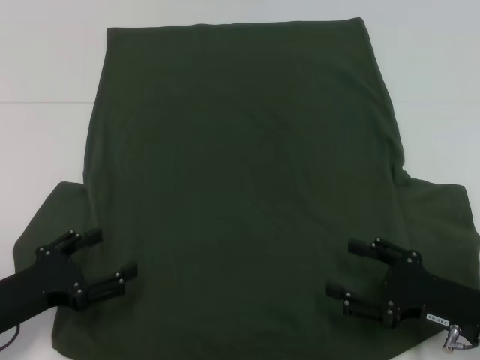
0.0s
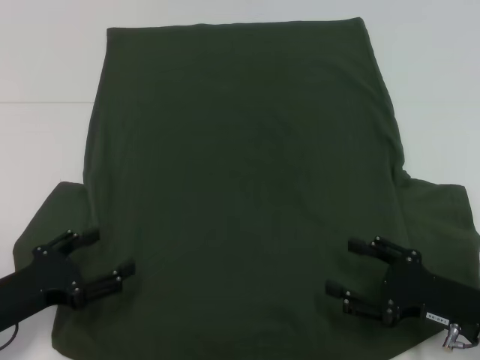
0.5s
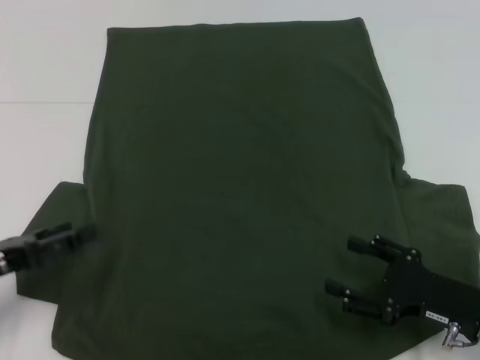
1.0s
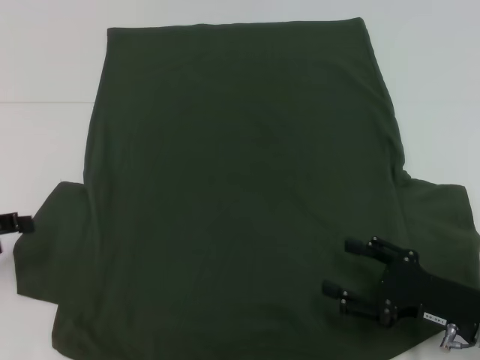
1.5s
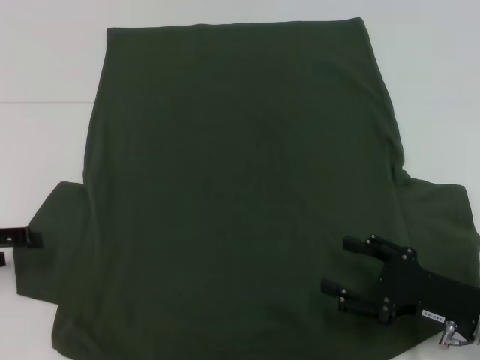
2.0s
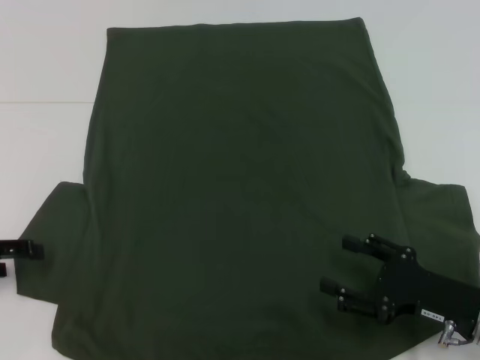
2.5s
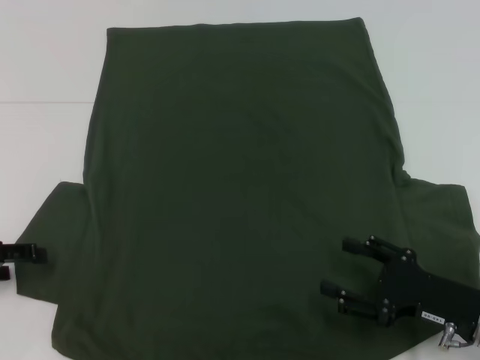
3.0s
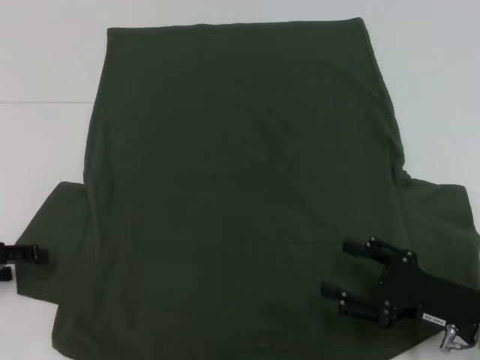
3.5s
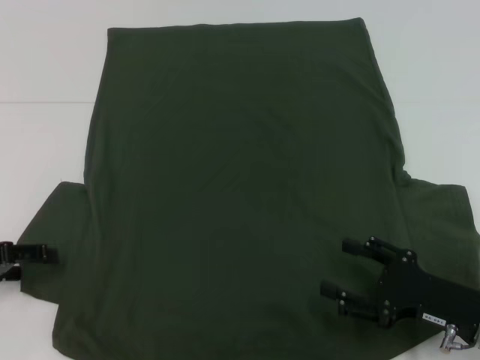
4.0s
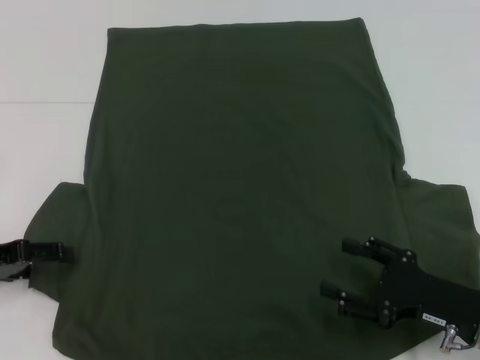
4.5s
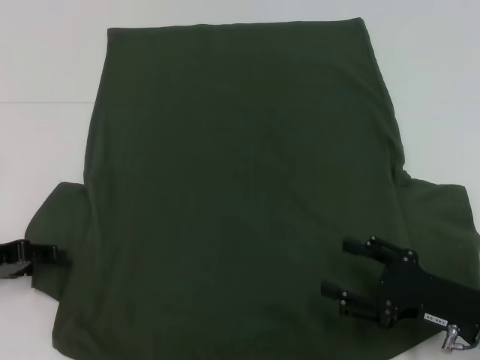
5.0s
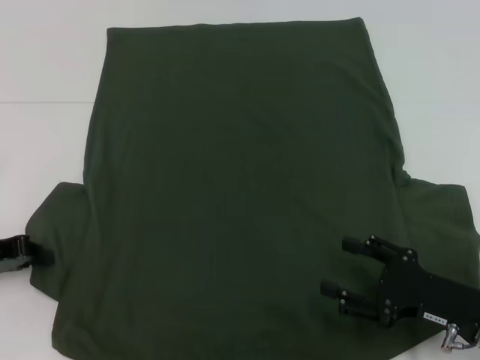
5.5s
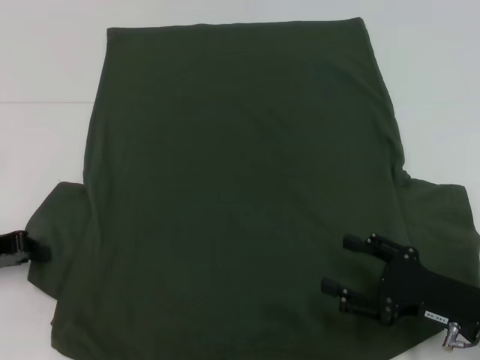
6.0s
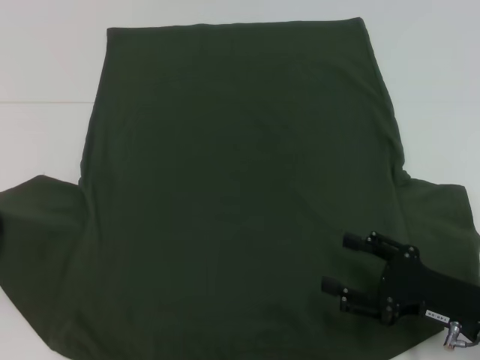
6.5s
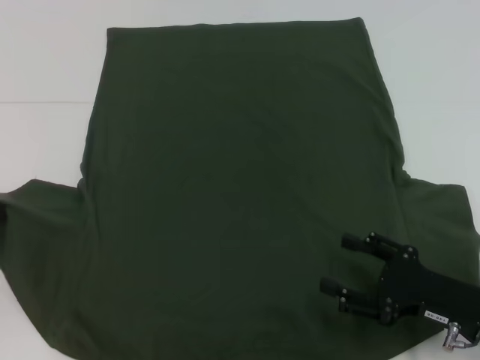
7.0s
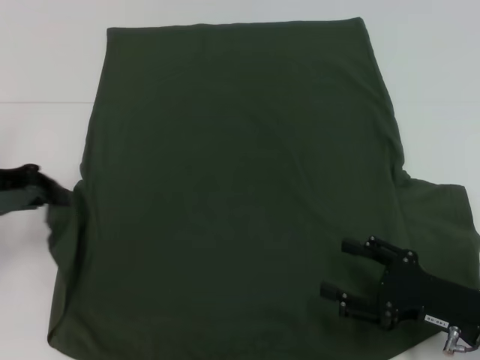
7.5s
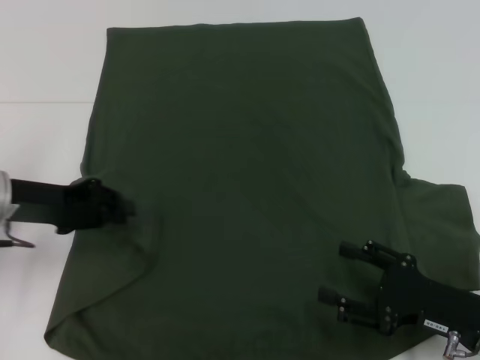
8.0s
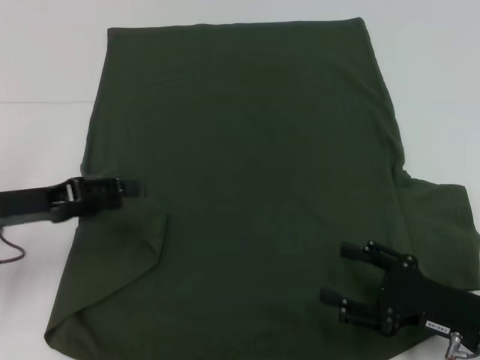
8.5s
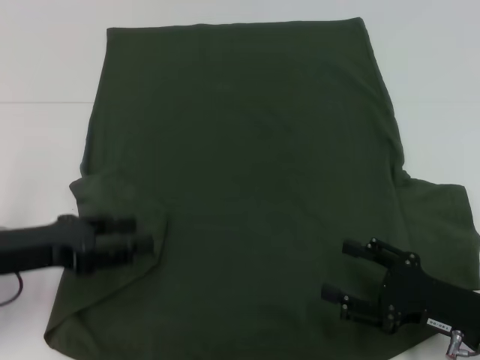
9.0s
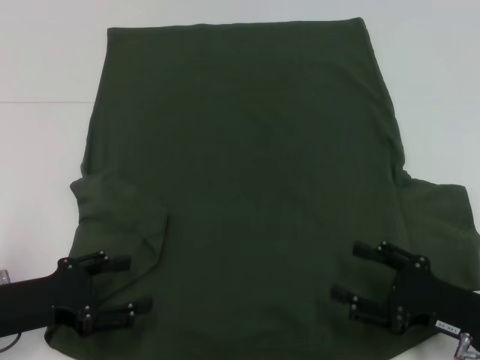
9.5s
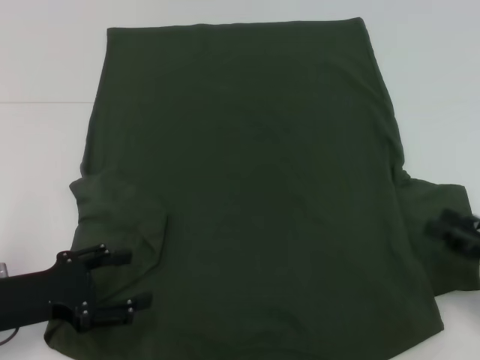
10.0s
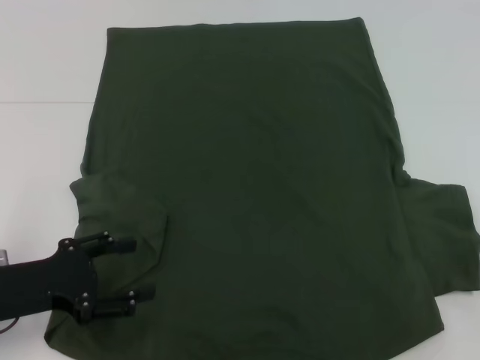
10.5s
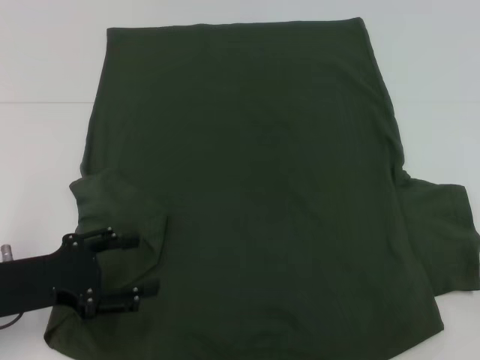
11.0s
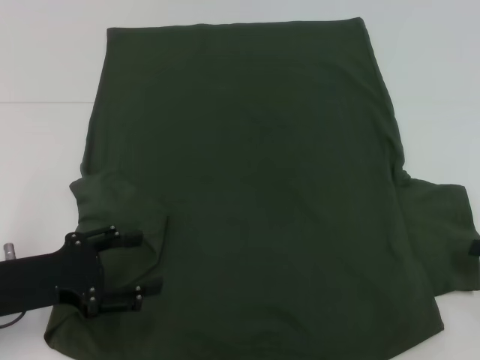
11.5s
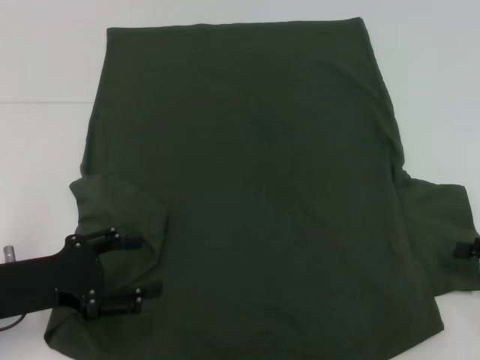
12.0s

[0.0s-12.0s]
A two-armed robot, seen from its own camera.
Step, 0.0s to 8.5s: Fold the bottom left sleeve with your left hand.
0.0s to 2.0s: The left gripper goes some 15 cm to the left, upward and forward.
2.0s to 4.0s: The grippers make only small movements.
4.0s to 6.0s: The left gripper closes.
6.0s to 8.0s: The left gripper moves to the right, about 5 cm.
8.0s to 10.0s: The left gripper goes some 10 cm backward, and opens up; the right gripper goes roughly 10 cm to the right.
10.0s to 12.0s: The right gripper shifts by approximately 5 cm.

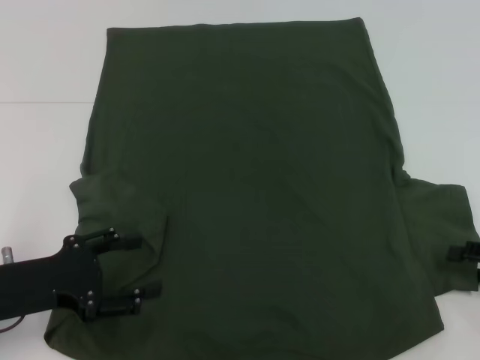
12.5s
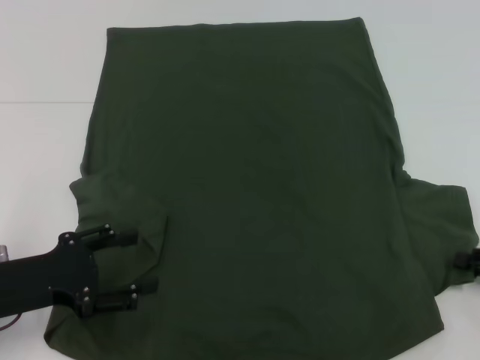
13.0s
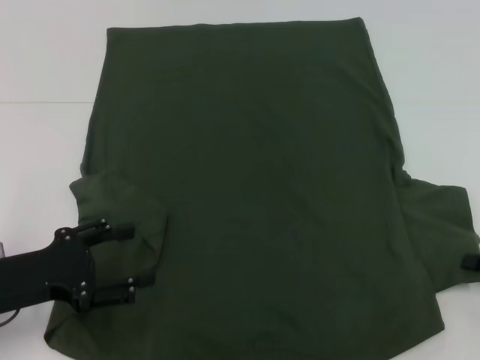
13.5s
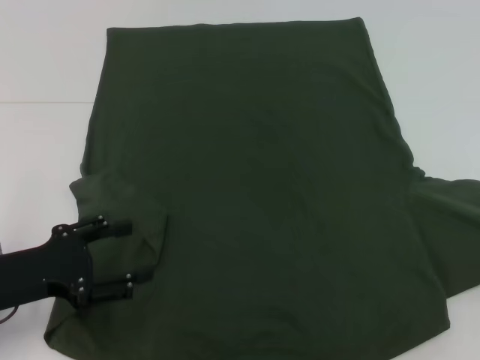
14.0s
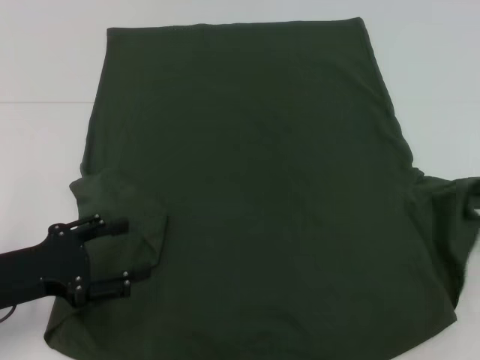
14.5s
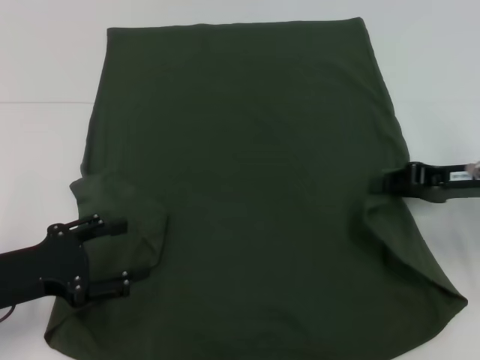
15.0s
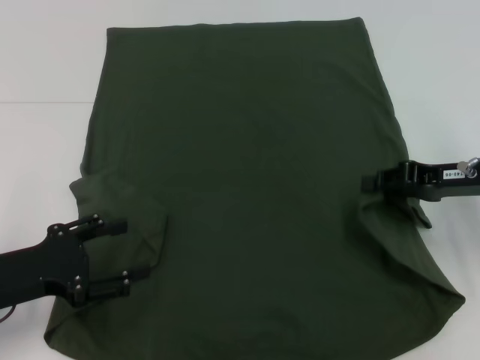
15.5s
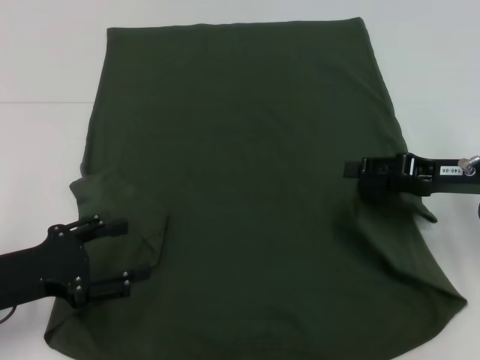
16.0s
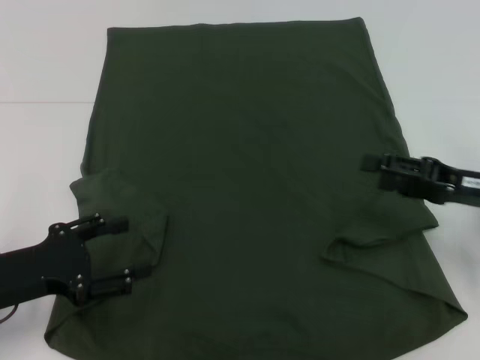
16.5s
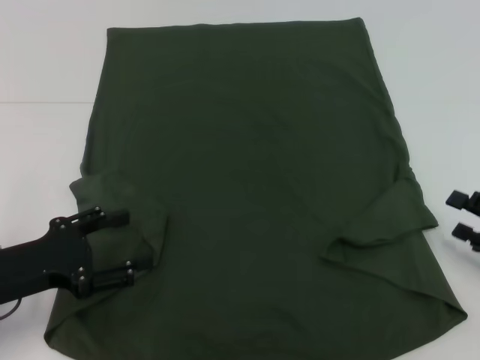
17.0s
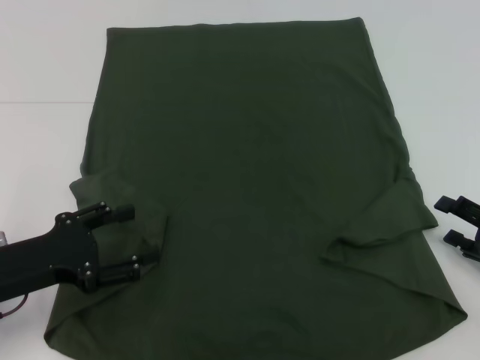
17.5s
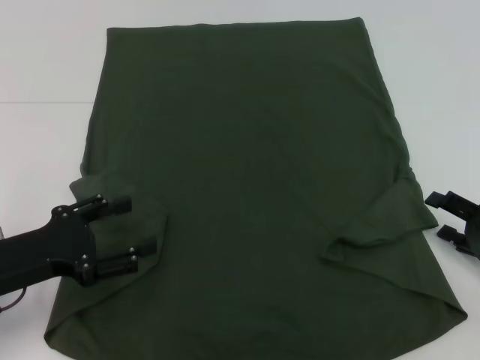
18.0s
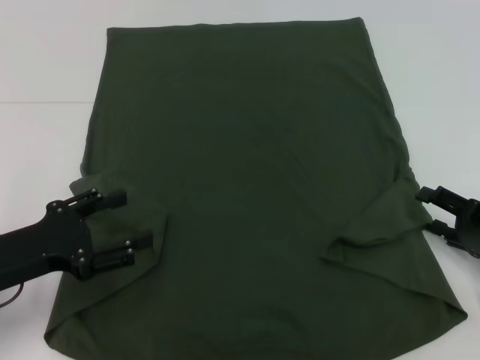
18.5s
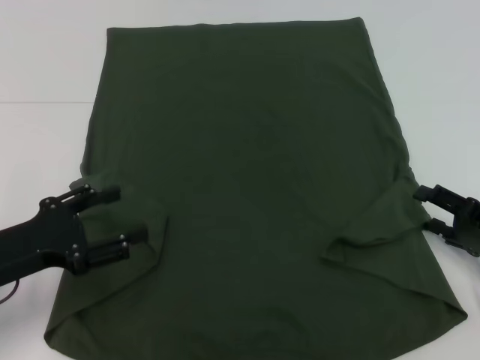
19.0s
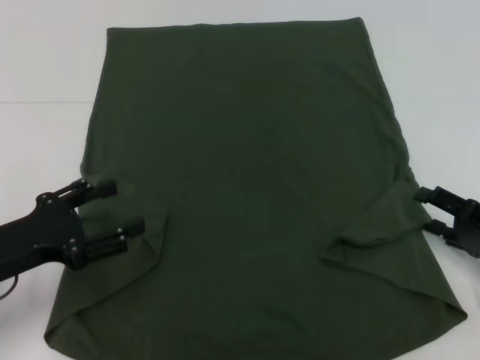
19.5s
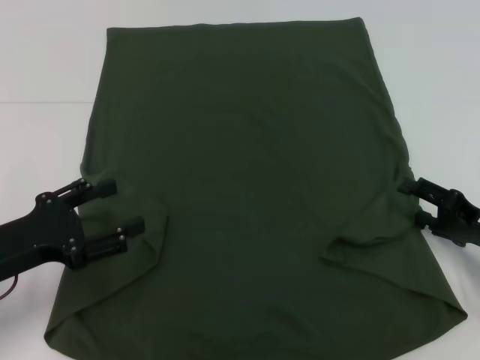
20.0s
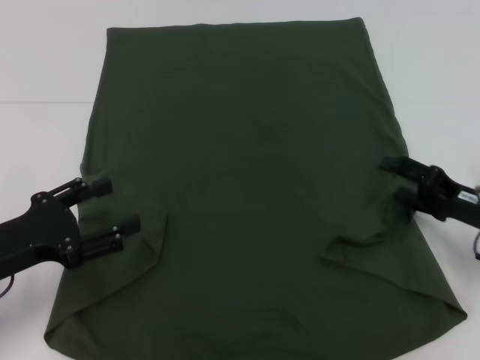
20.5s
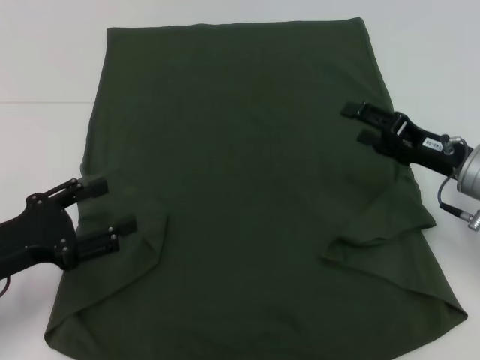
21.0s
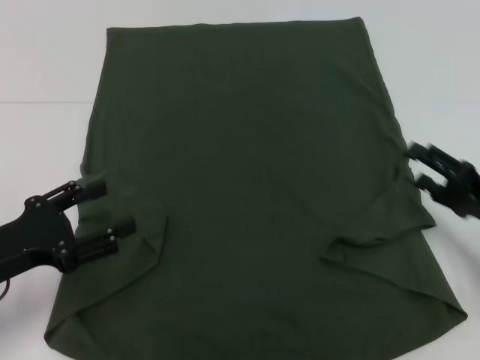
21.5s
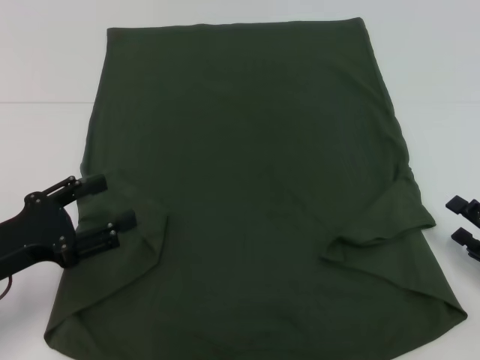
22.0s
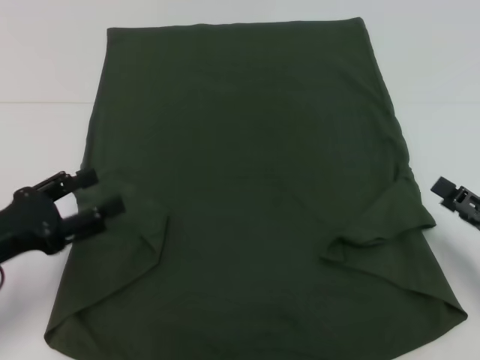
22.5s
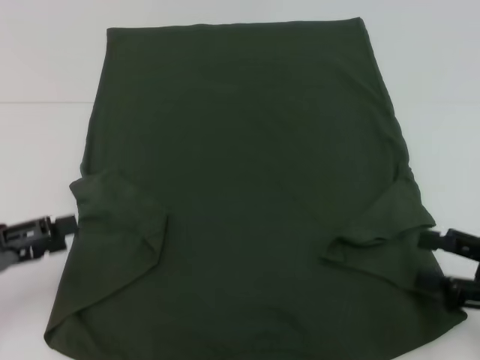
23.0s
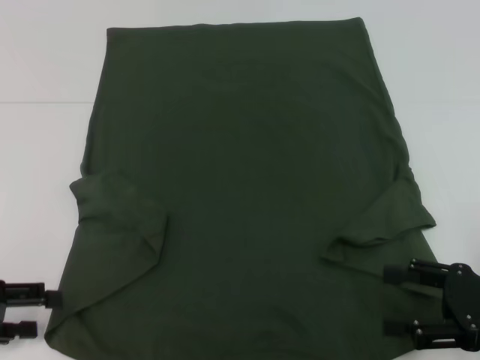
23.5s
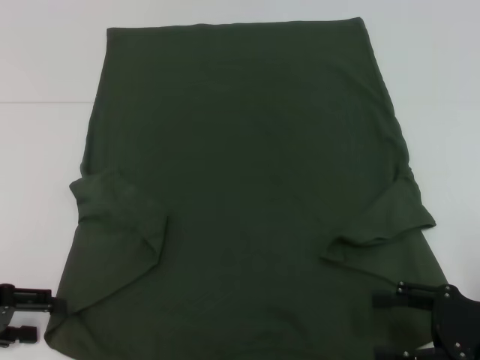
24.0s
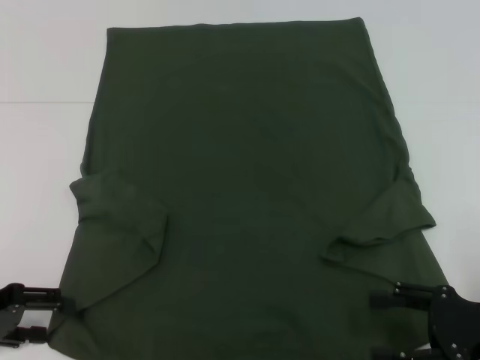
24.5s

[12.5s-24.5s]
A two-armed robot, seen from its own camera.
Step, 12.5s to 16.5s: Fold the bottom right sleeve with your right hand.
12.5s to 14.5s: The right gripper moves approximately 5 cm, and closes.
14.5s to 16.5s: The right gripper moves to the left, some 10 cm, and opens up.
16.5s to 18.5s: The right gripper goes some 5 cm downward.
18.5s to 20.5s: The right gripper moves about 5 cm.
20.5s to 22.5s: The right gripper moves backward, about 10 cm.
22.5s to 24.5s: The left gripper changes place by roughly 5 cm.

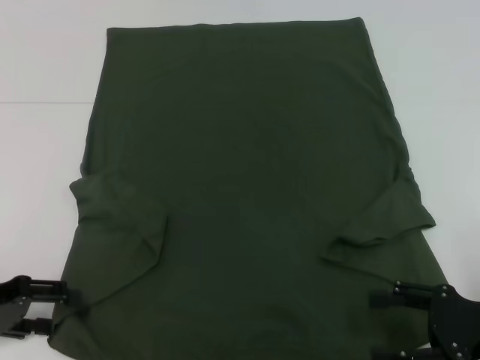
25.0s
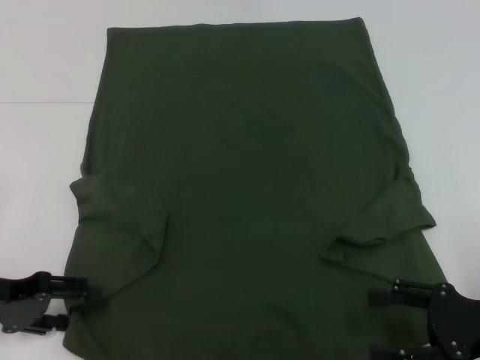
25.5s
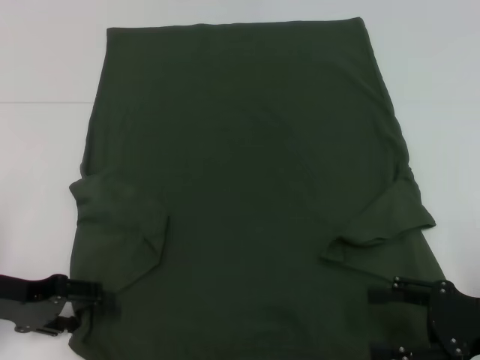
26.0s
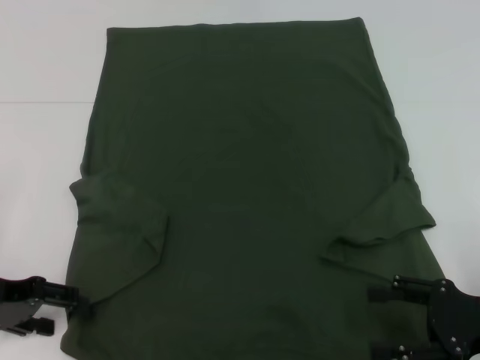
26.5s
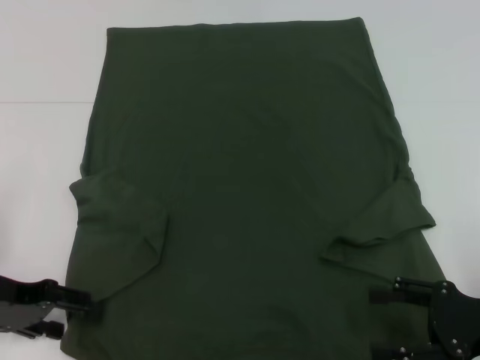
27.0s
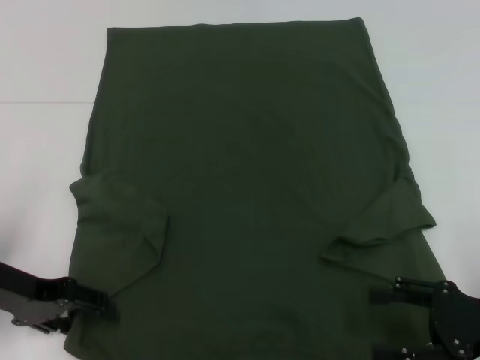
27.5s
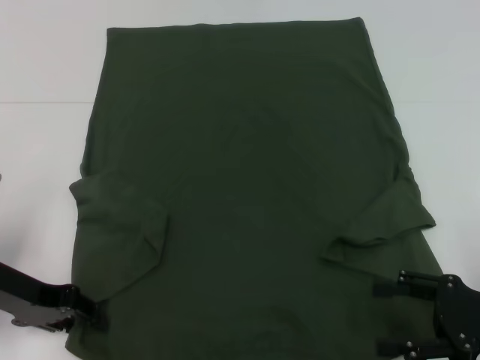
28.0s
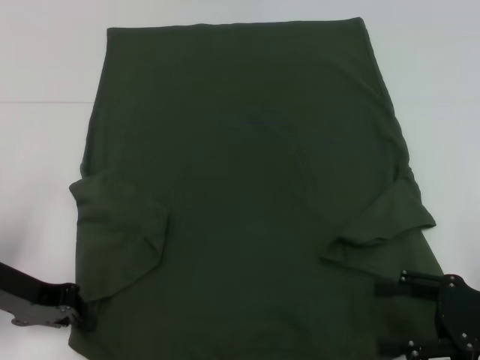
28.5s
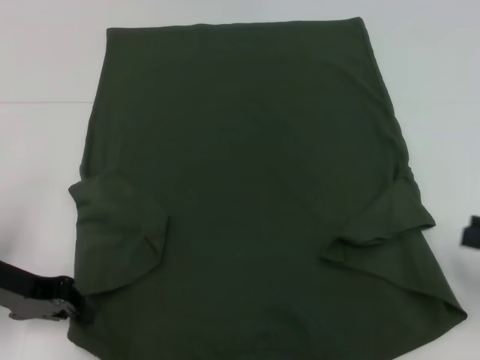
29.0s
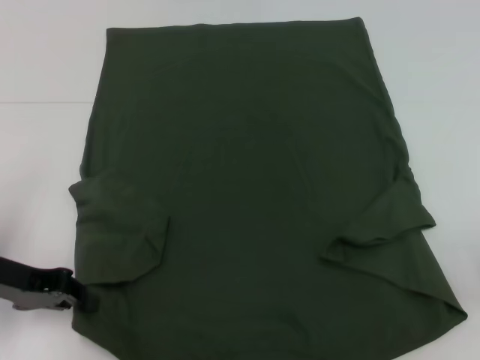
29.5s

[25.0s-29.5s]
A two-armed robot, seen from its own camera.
25.0s to 27.0s: The grippers make only small movements.
27.0s to 29.5s: The right gripper heads to the right and upward, covering approximately 15 cm. The left gripper closes.
